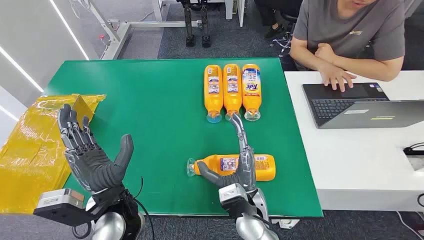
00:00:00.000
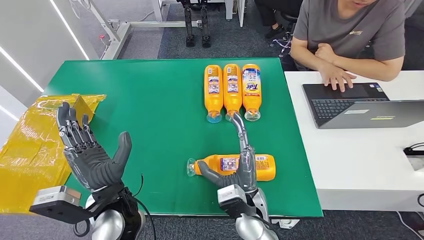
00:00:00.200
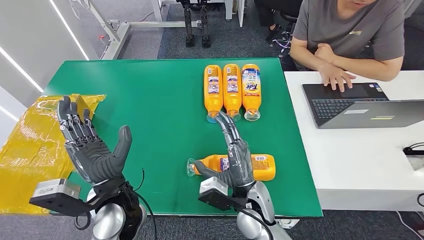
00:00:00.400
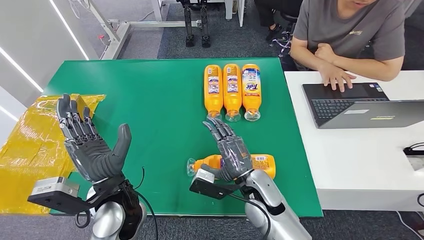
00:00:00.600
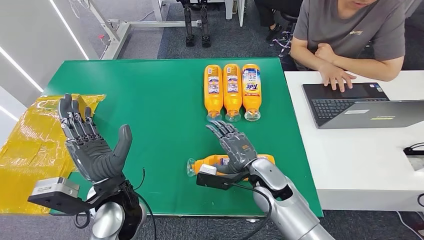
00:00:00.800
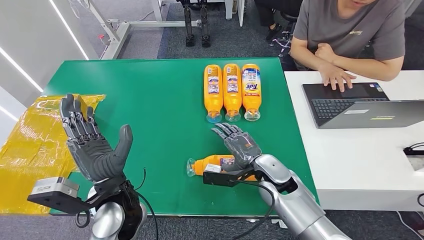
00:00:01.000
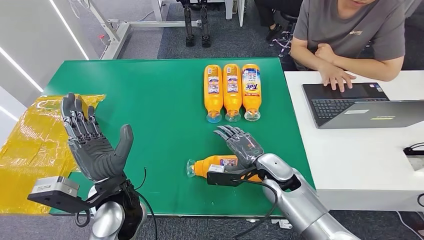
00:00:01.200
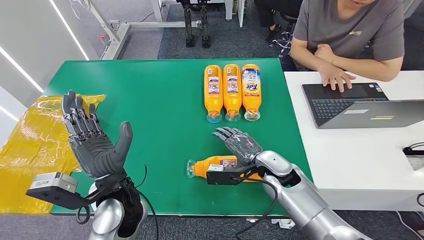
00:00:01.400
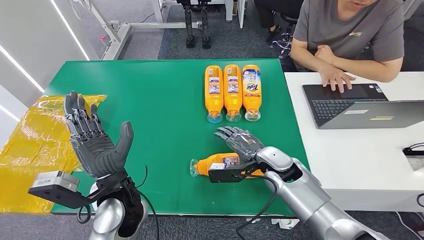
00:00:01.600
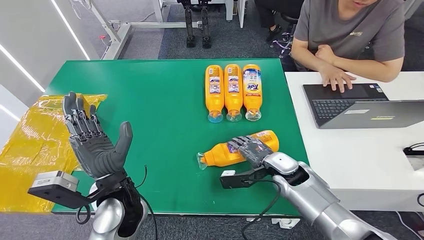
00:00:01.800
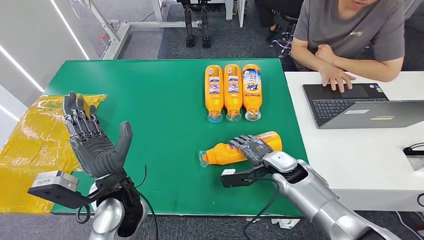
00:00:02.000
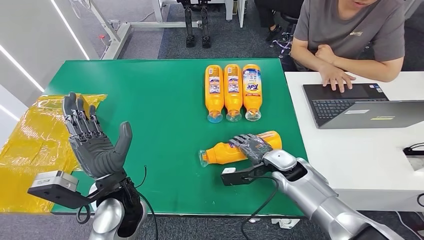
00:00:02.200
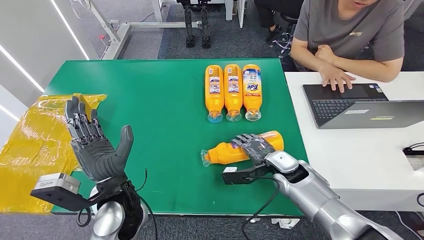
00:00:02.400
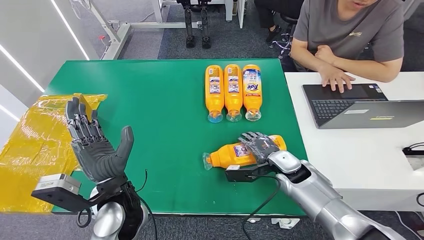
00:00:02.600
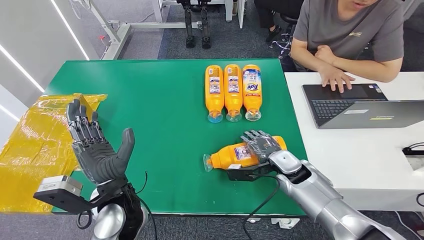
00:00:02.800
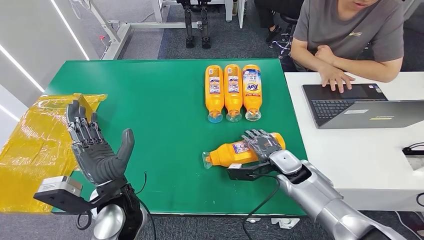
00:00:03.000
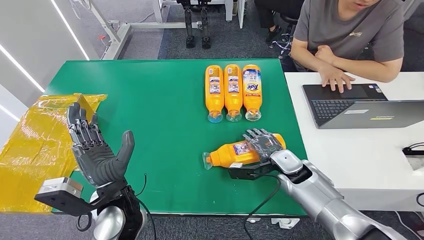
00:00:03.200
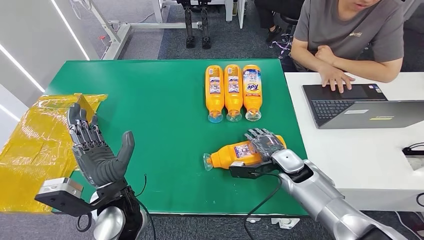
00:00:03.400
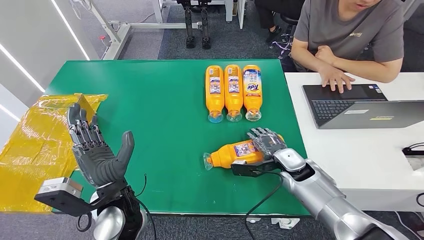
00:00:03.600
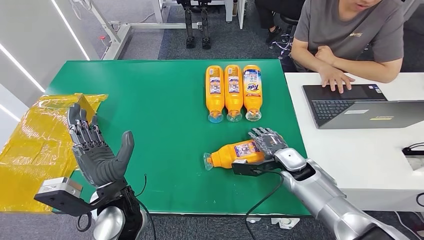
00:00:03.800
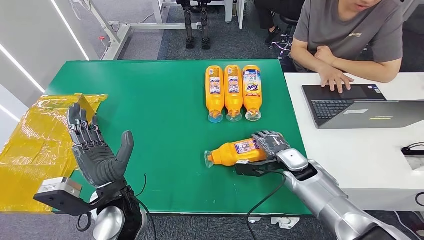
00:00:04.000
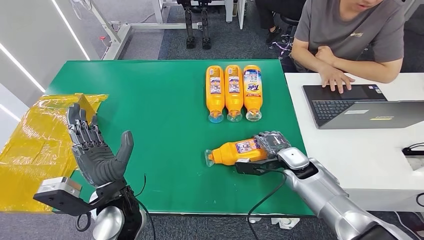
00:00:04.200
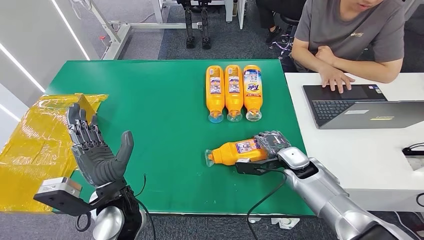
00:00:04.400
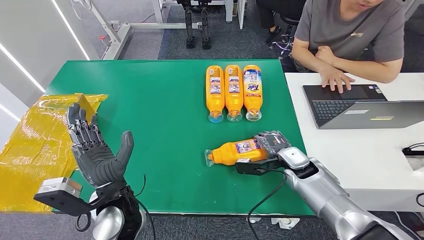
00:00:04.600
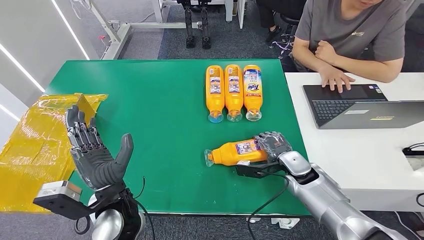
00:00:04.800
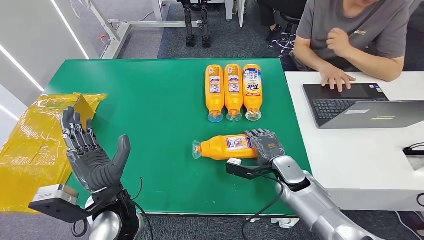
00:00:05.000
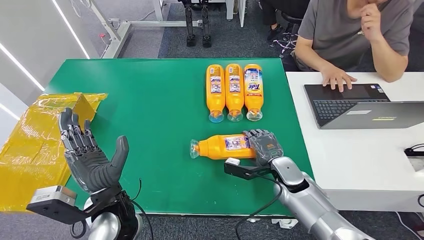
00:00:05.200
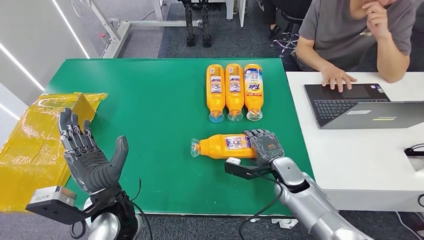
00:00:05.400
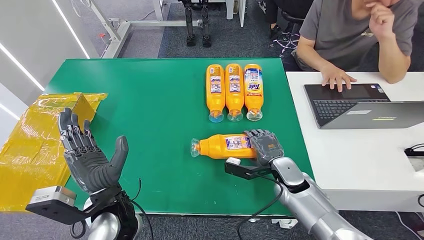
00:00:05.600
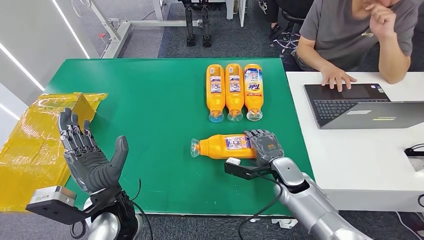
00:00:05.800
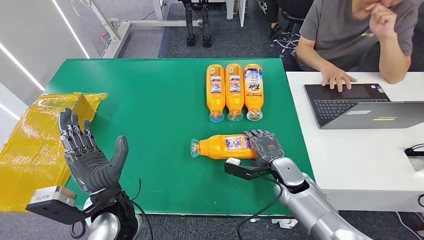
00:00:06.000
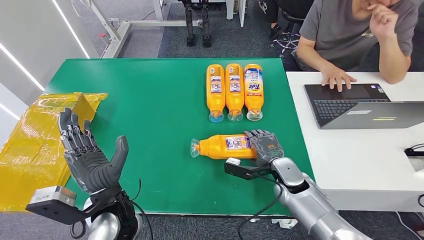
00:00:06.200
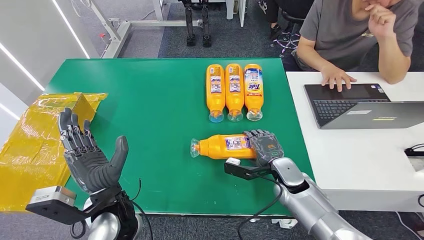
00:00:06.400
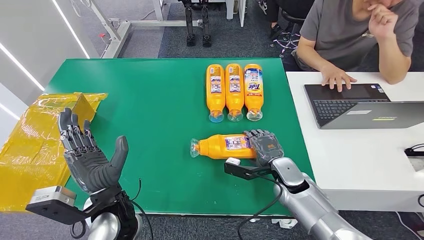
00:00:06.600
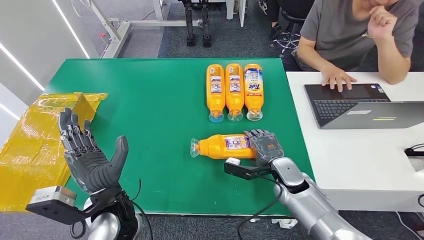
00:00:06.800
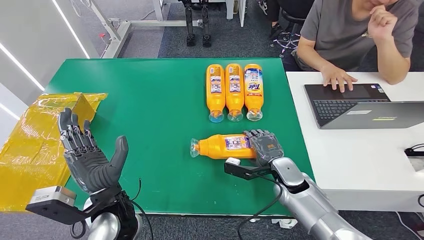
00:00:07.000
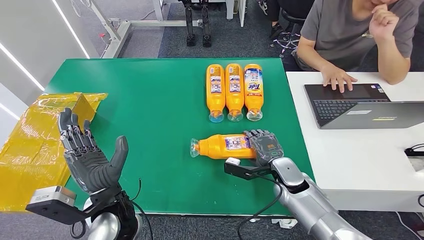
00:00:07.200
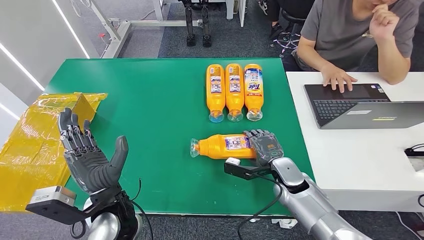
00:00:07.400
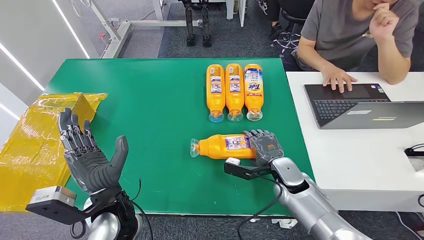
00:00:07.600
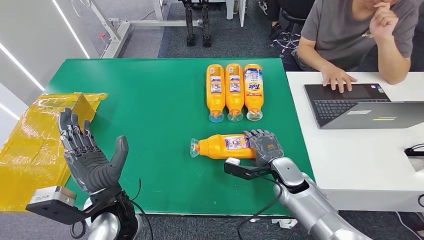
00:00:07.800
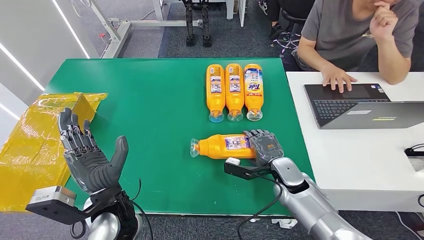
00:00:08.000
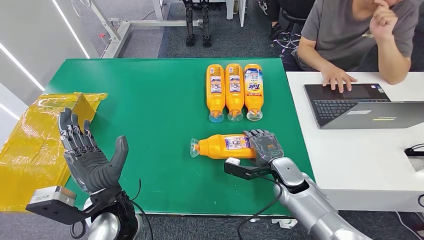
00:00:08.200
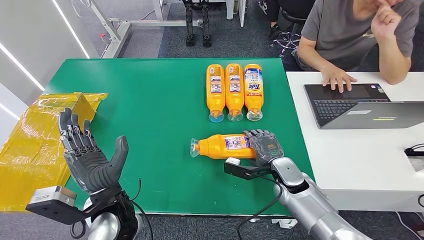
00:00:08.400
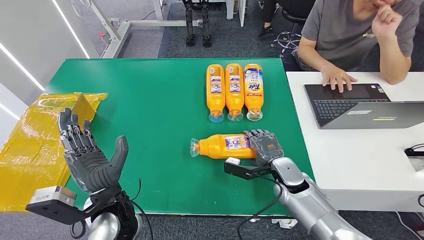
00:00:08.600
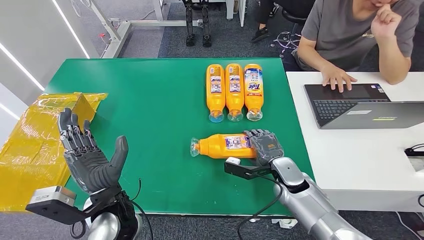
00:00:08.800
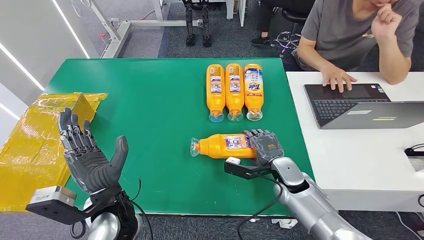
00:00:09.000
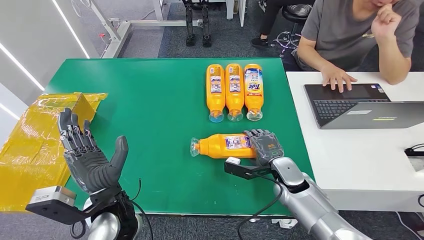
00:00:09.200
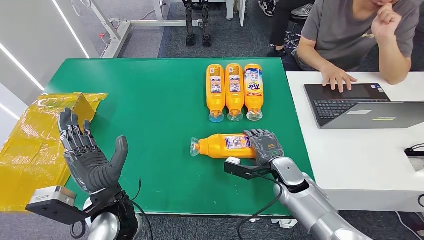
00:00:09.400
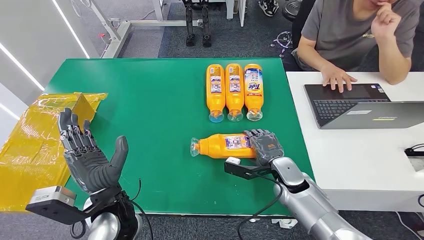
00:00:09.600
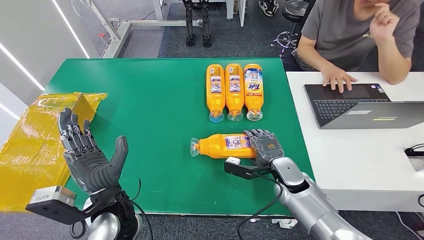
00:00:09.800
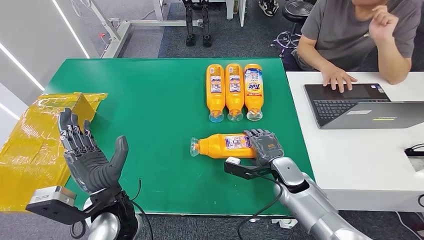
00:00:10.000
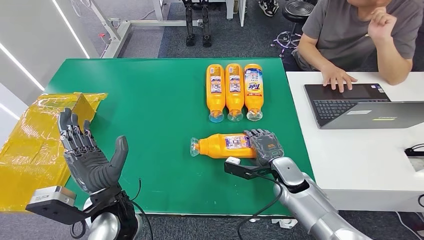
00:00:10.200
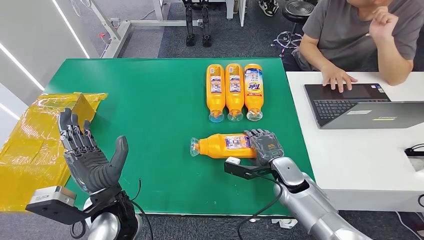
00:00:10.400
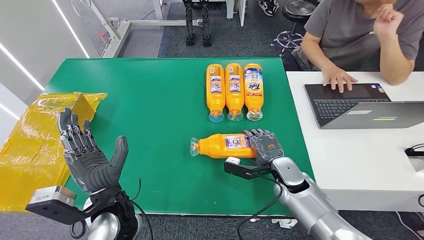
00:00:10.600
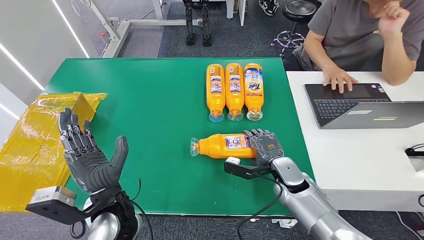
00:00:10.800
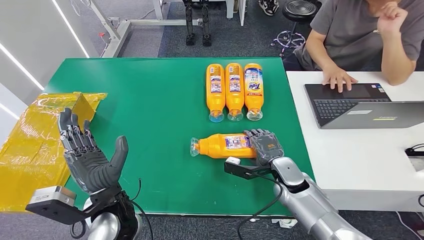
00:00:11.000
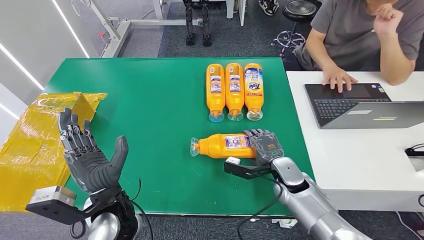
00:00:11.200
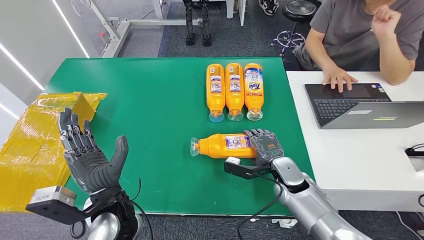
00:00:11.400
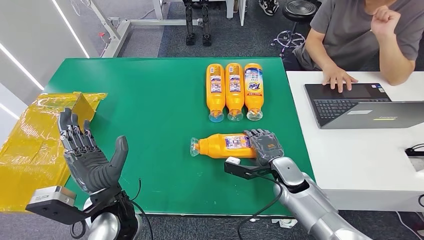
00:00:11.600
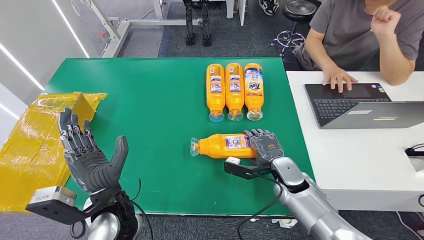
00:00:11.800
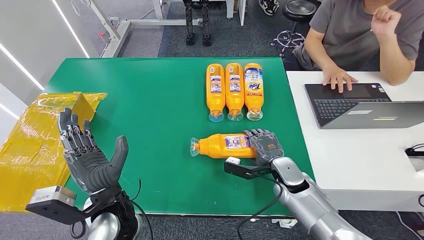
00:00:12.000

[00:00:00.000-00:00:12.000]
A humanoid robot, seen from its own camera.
00:00:01.600 to 00:00:03.000: The hands make only small movements.
00:00:03.000 to 00:00:04.400: There are only small adjustments of the hands.
00:00:06.000 to 00:00:12.000: The two hands keep their place.

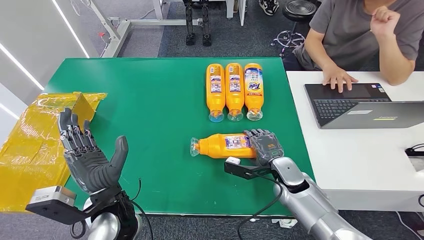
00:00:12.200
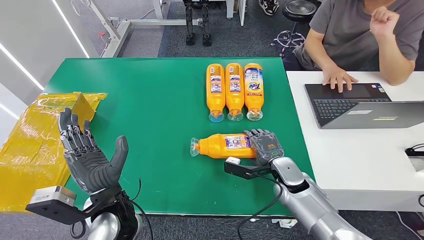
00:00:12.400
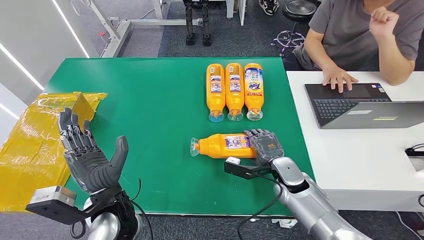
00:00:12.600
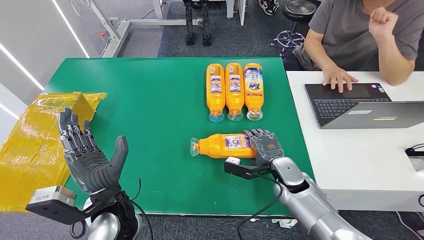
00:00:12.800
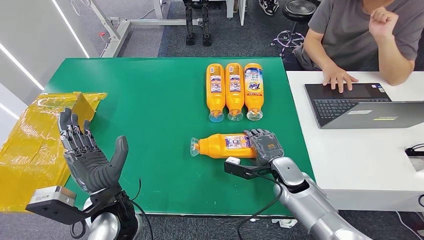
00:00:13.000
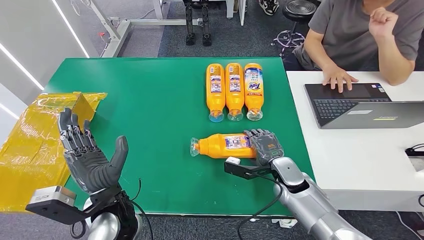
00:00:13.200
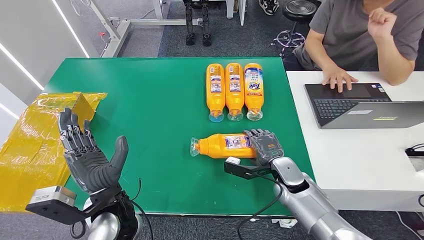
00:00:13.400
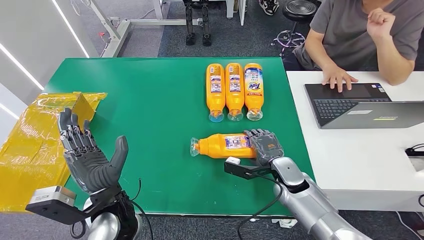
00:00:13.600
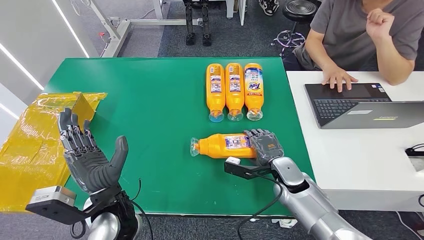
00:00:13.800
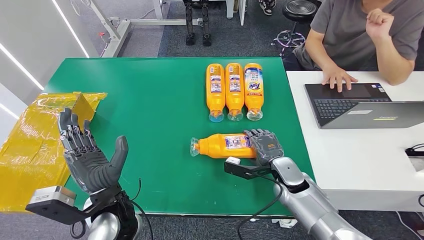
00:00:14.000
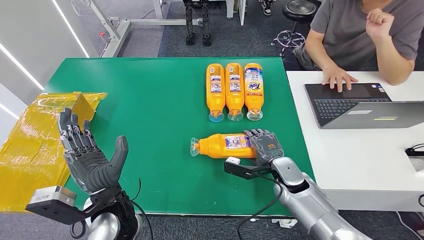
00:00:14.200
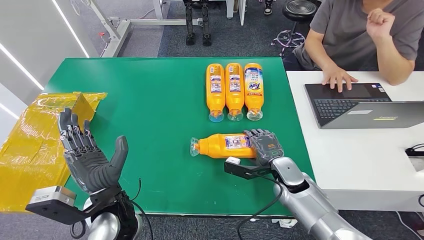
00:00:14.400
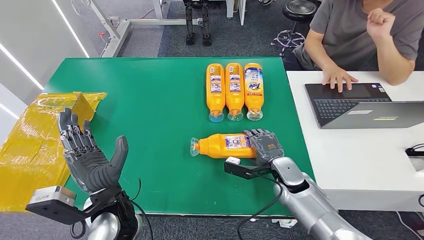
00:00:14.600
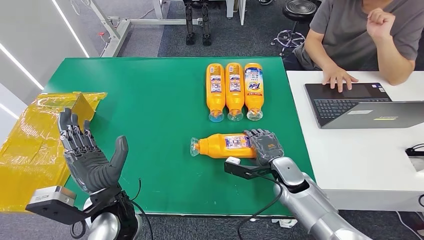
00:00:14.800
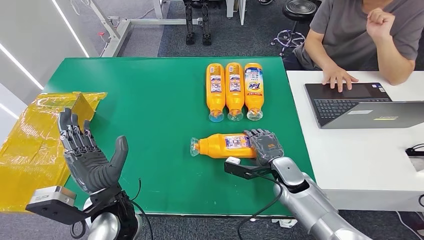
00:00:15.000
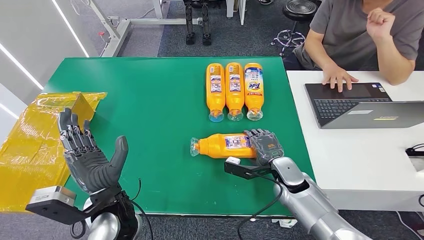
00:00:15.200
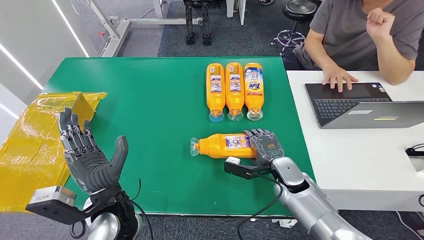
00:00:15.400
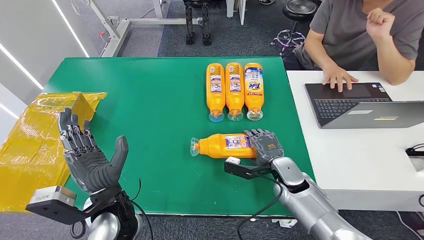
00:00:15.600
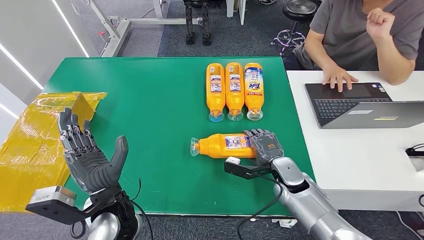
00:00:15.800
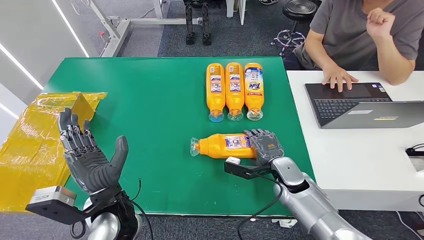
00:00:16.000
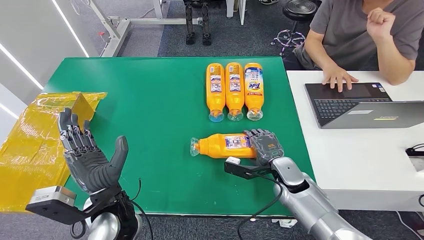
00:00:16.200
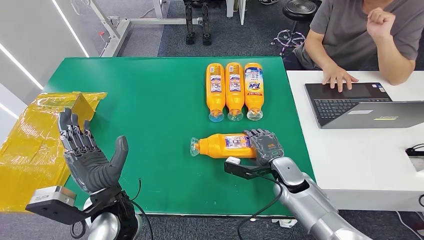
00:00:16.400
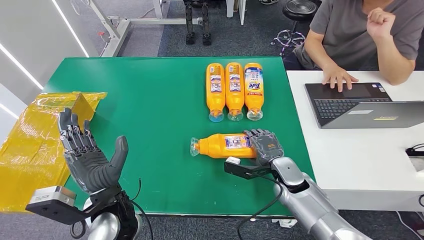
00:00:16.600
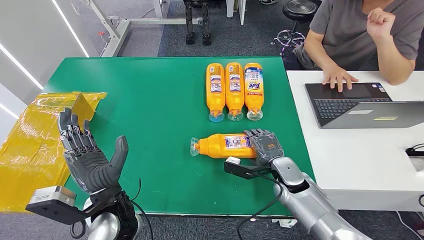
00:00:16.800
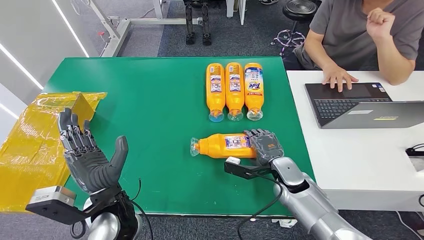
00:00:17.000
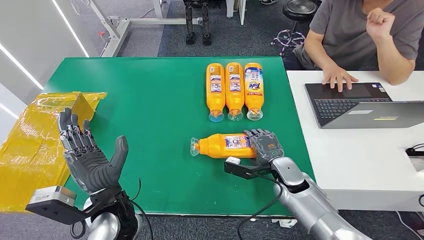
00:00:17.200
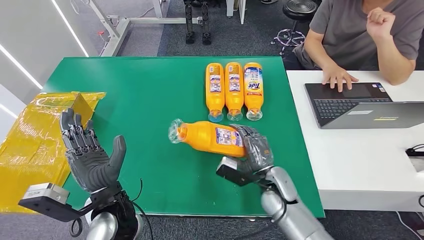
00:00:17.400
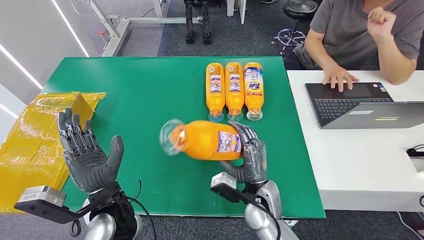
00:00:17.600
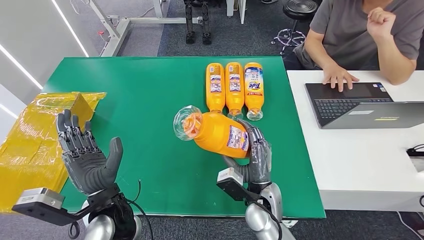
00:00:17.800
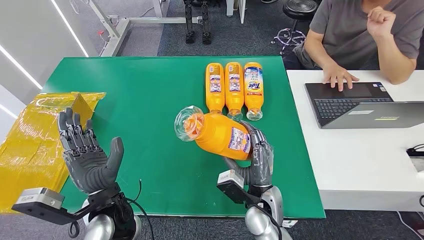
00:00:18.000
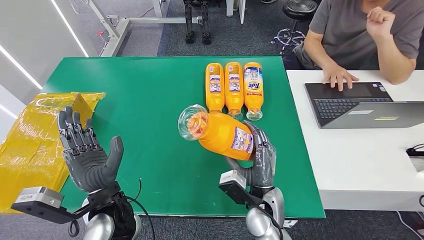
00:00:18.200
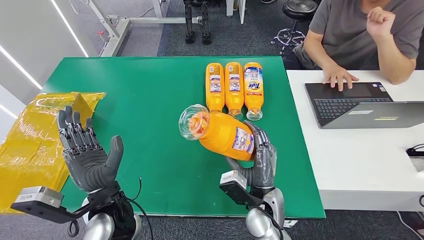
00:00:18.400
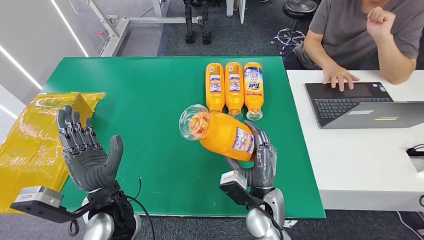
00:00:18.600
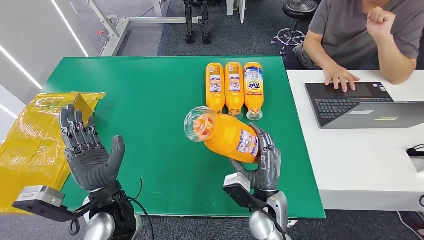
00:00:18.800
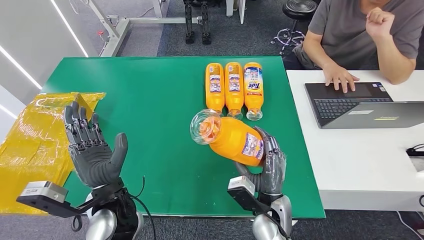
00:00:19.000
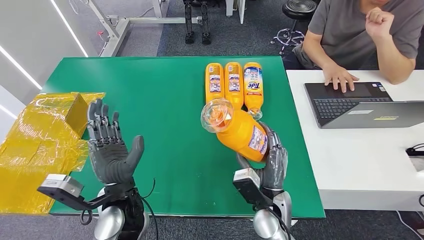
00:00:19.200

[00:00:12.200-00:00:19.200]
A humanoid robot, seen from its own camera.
Step, 00:00:12.200 to 00:00:19.000: Pick up the bottle from the table.
00:00:12.200 to 00:00:16.400: The two hands keep their place.
00:00:16.400 to 00:00:17.800: The right hand is displaced to the left and backward by some 10 cm.
00:00:17.800 to 00:00:19.200: The hands make only small movements.
